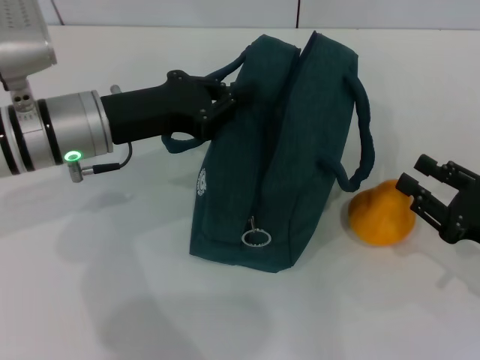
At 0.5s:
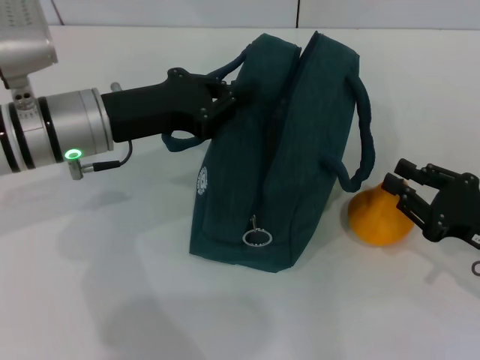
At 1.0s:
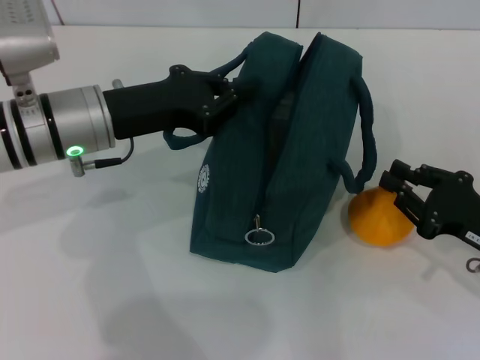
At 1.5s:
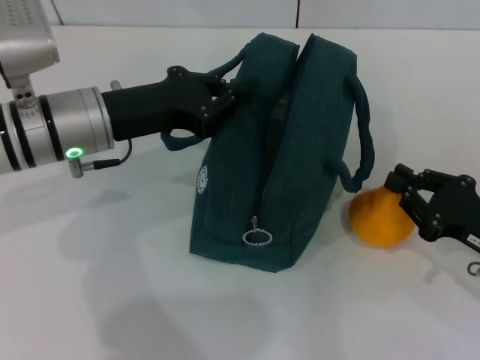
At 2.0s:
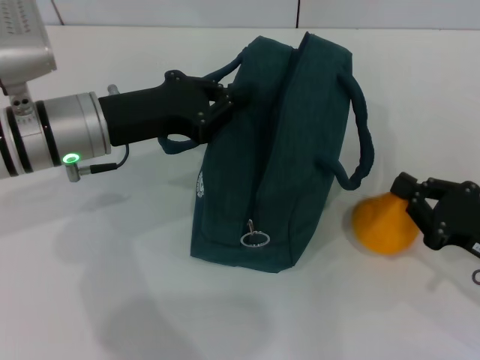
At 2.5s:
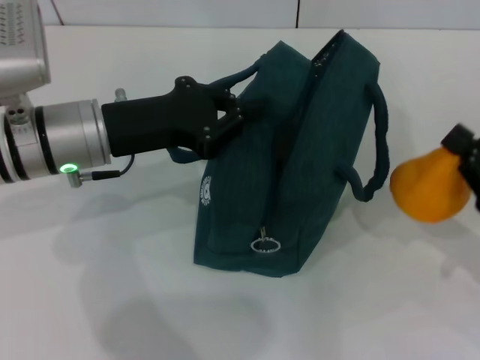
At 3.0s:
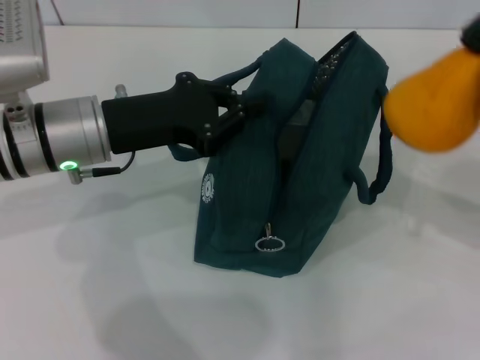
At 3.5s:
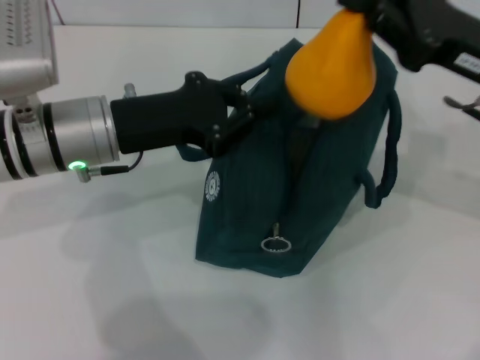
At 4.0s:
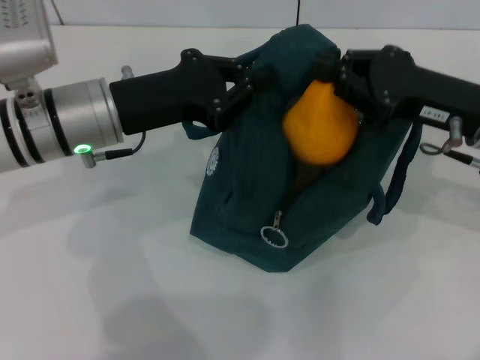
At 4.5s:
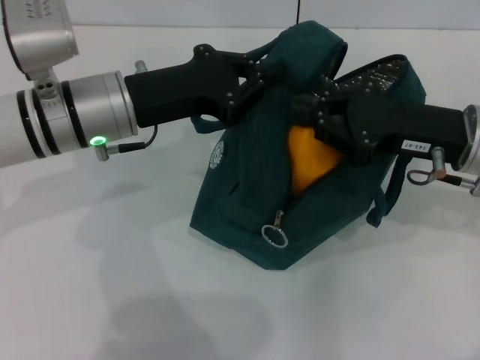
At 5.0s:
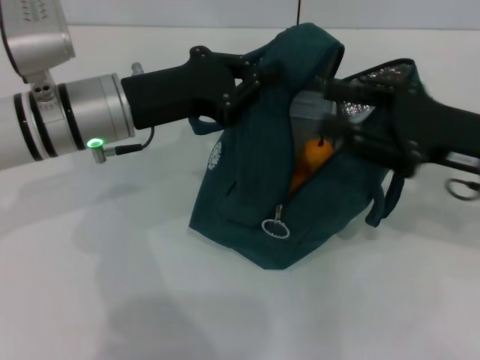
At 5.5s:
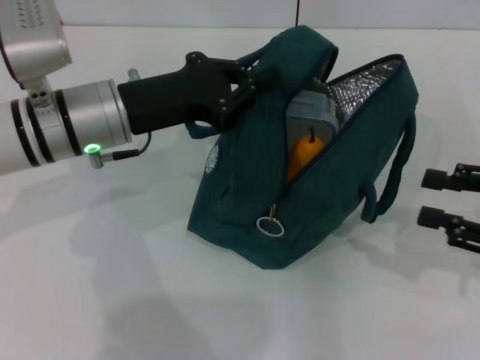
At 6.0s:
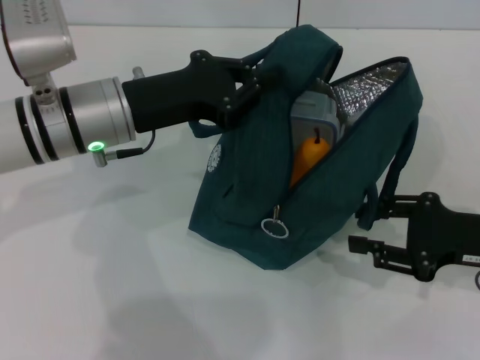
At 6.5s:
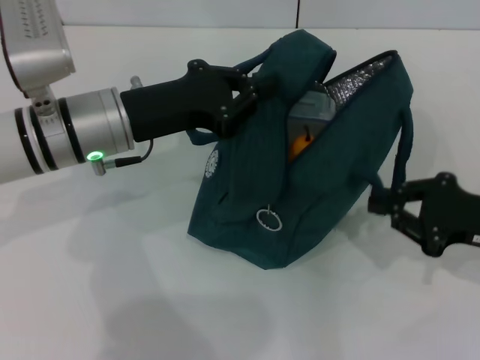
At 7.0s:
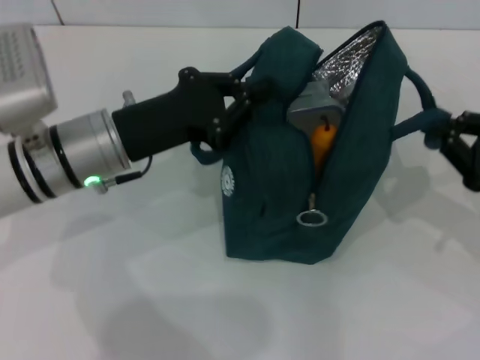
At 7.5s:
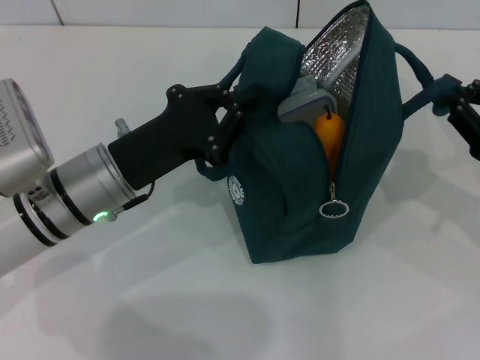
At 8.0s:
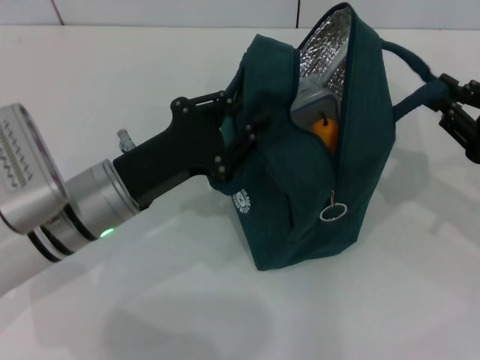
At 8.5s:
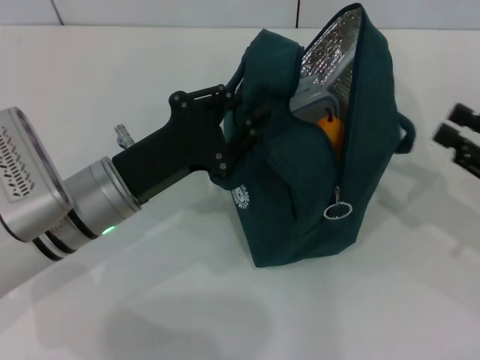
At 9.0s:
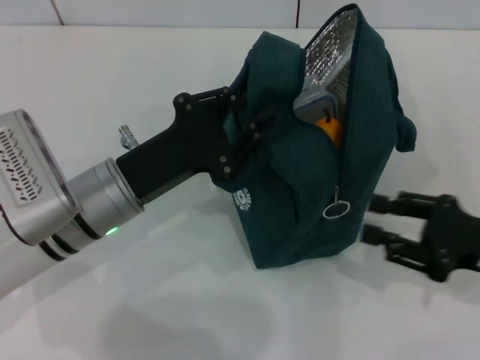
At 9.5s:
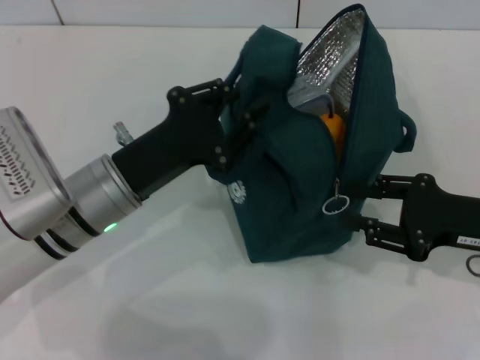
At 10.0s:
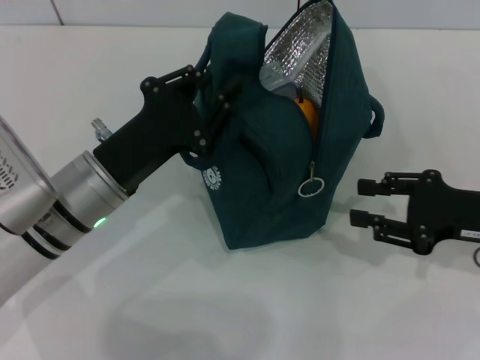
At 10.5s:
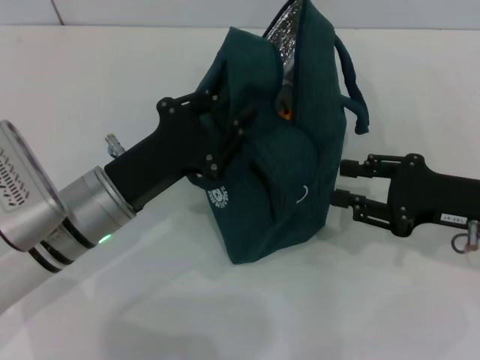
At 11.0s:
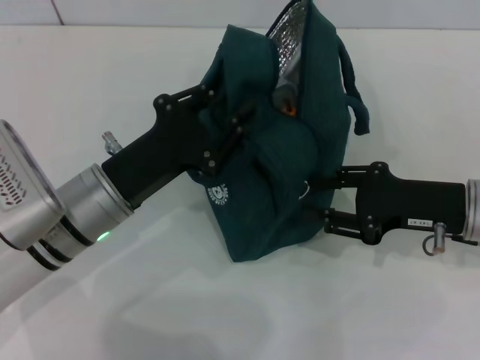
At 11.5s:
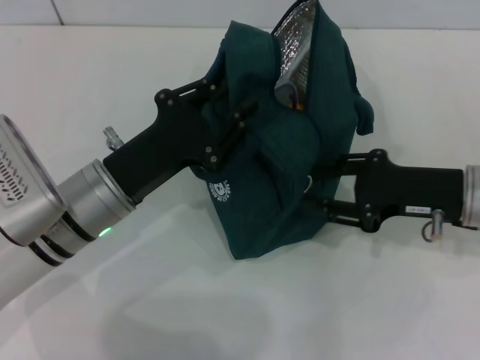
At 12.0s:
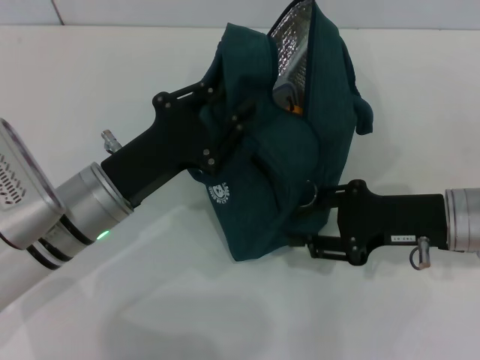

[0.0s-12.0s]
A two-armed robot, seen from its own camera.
Step, 2.0s to 4.5s: Secure the lunch bag with your left hand.
Step, 5.0s to 8.0s: Hold the lunch bag with your right hand.
0.0s to 2.0s: The right gripper closes up.
2.0s to 4.0s: The right gripper moves upward, forward and to the left, approximately 15 cm.
4.0s to 6.0s: The right gripper goes roughly 10 cm backward, downward and to the right, and opens.
6.0s to 8.0s: The right gripper closes its fingers; the left gripper moves backward and downward, some 10 cm.
8.0s to 10.0s: The right gripper opens its fingers.
10.0s to 12.0s: The right gripper moves to the left, roughly 5 cm.

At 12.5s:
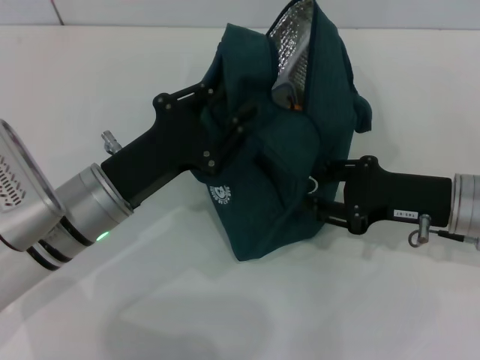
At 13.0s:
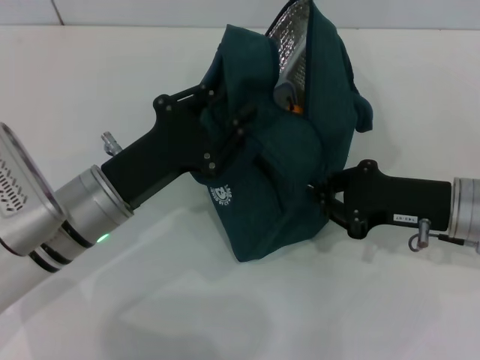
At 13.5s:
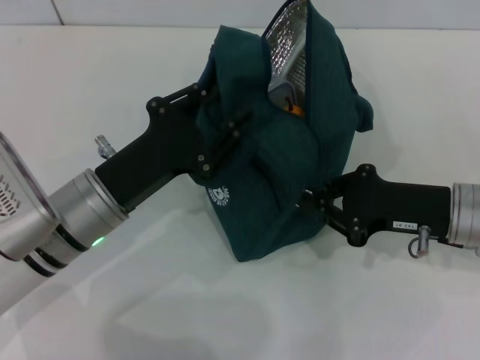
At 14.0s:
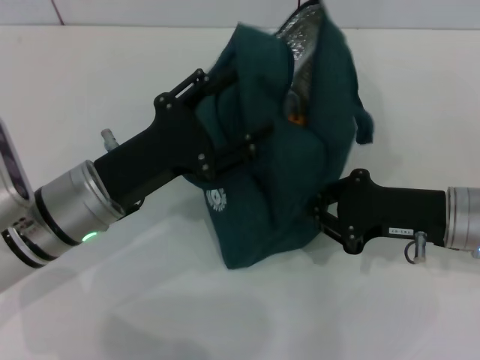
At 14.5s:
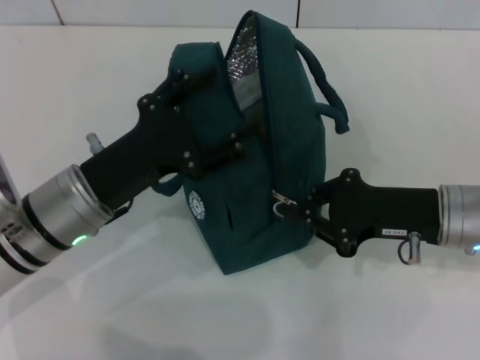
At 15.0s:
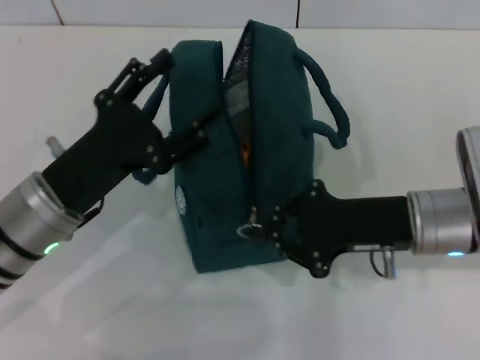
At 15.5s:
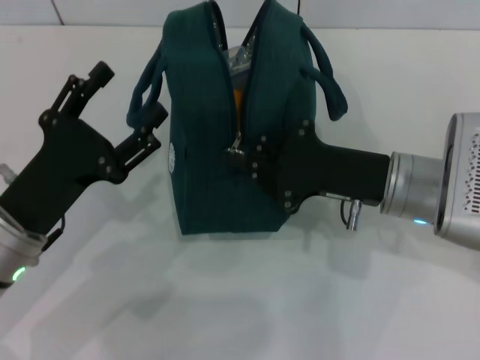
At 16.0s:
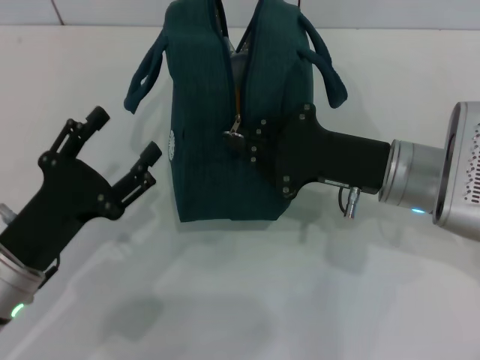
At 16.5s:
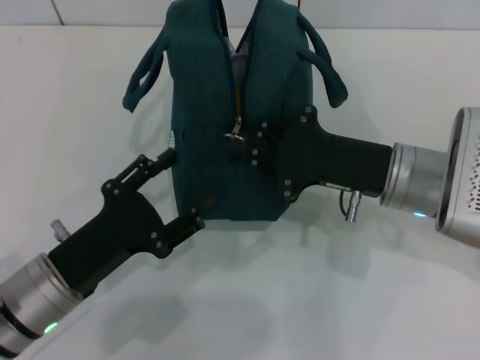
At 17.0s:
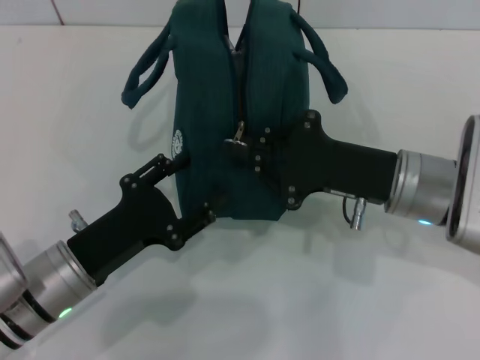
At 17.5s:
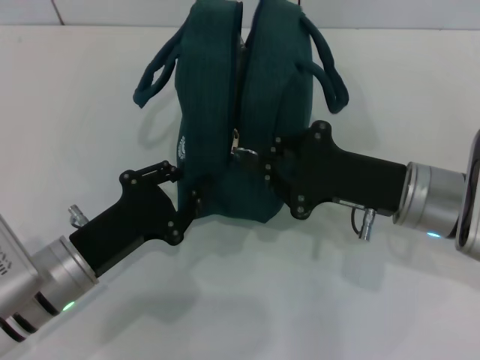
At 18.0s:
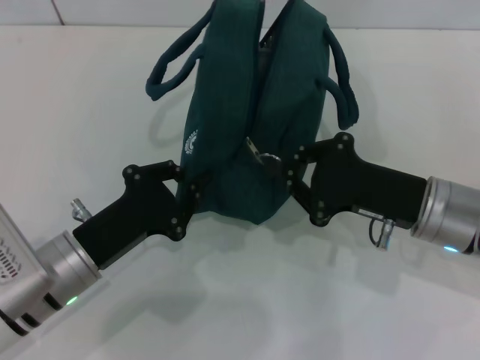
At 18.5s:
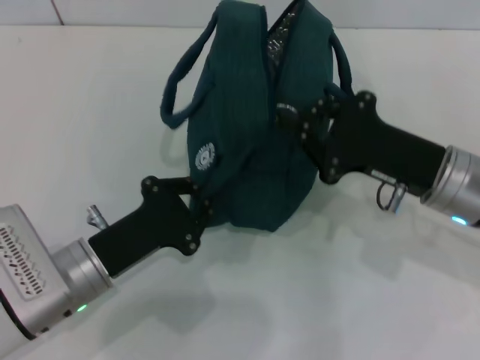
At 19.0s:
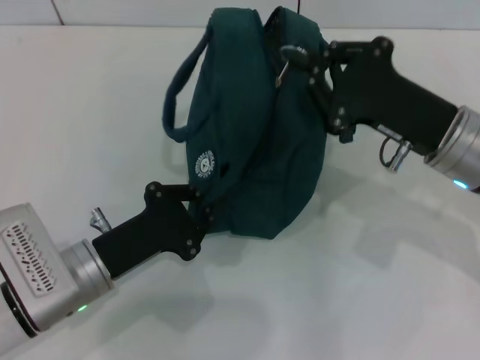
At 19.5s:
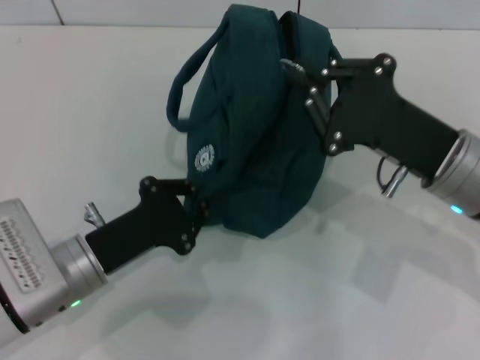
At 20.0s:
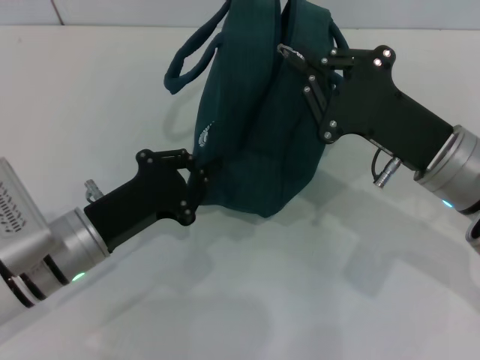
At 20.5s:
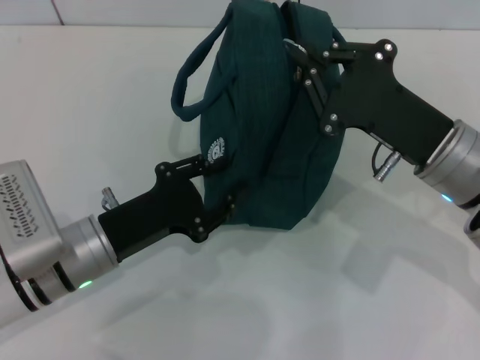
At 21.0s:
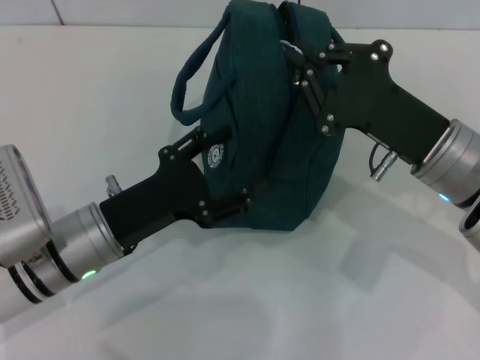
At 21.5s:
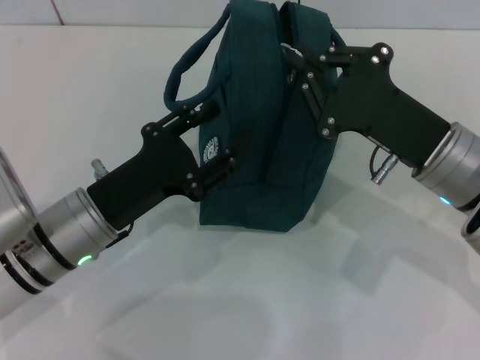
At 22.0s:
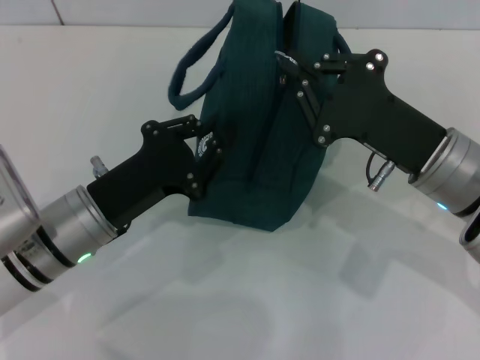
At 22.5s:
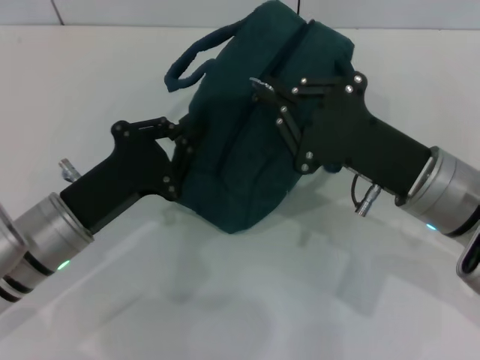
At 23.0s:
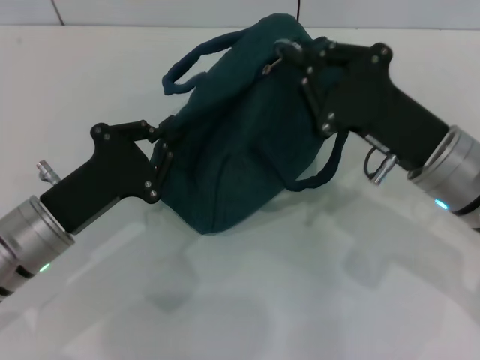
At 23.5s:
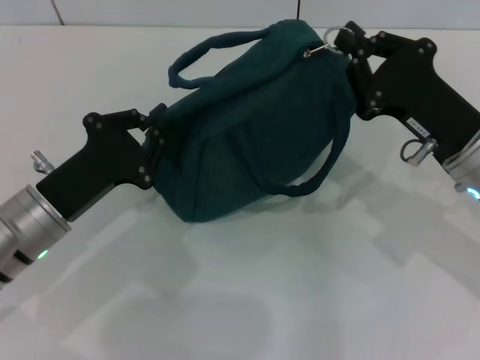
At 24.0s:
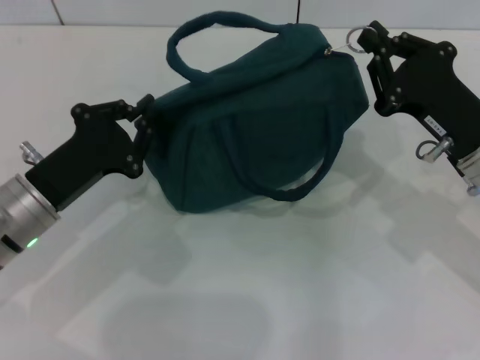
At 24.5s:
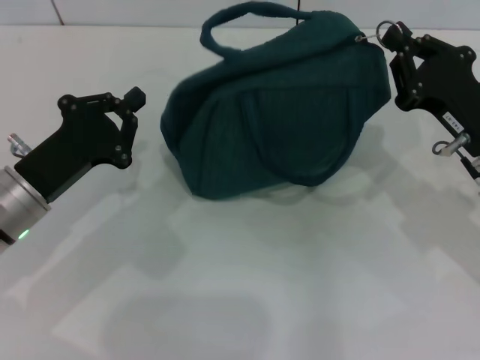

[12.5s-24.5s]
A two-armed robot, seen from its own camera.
12.5s to 14.5s: The left gripper opens its fingers; the right gripper closes its fingers.
14.5s to 16.5s: The left gripper moves backward, roughly 5 cm, while the right gripper moves to the left, approximately 5 cm.
16.5s to 18.5s: The left gripper closes up.
20.5s to 22.5s: The left gripper opens, then closes once more.
22.5s to 24.5s: The right gripper goes some 5 cm to the right.

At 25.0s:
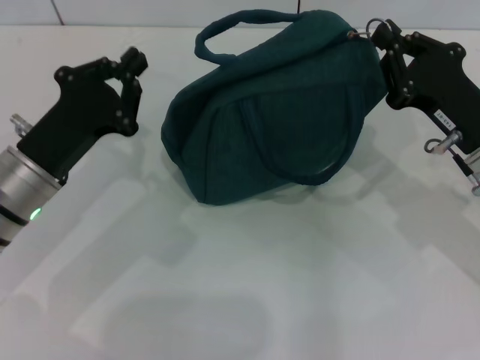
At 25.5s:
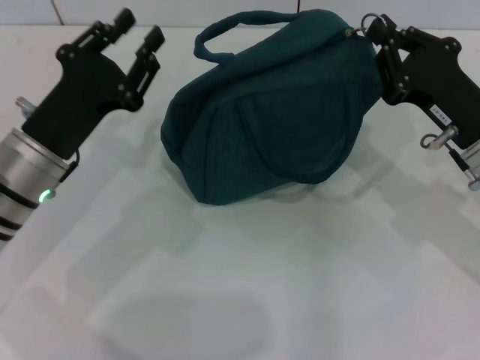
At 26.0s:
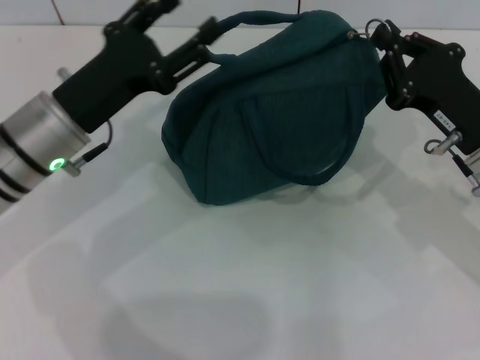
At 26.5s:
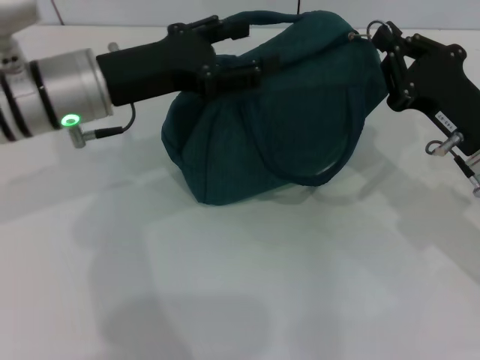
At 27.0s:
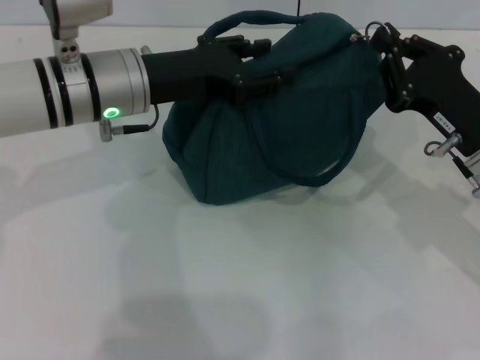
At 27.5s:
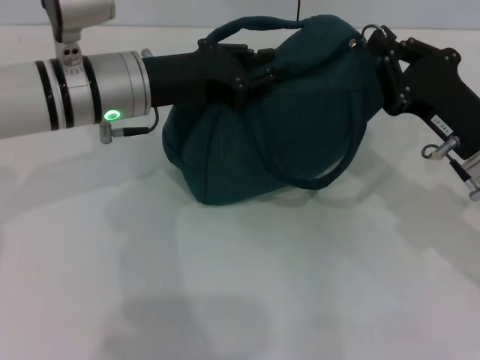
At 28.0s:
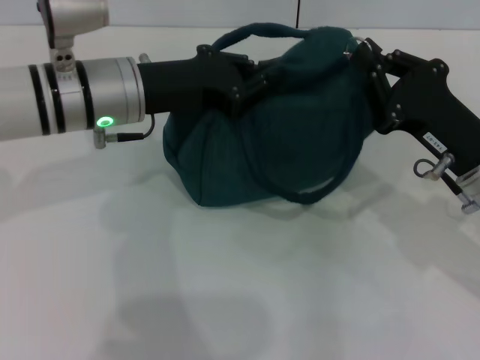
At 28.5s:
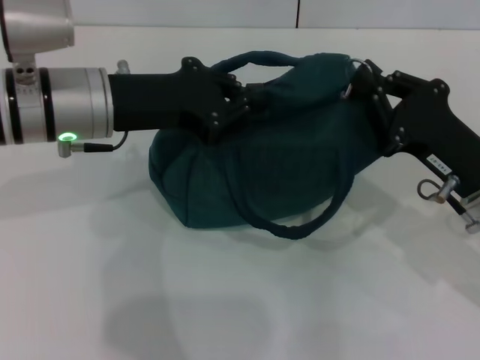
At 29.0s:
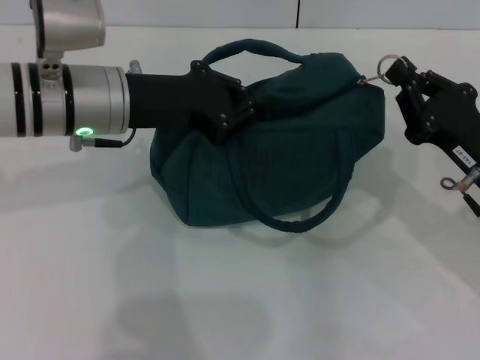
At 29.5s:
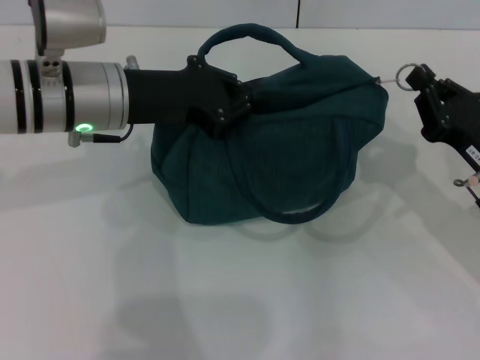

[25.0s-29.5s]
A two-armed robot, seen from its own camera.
25.0s to 27.0s: The left gripper is displaced forward, to the right and upward by roughly 15 cm, and opens.
27.0s to 29.5s: The left gripper closes its fingers.
